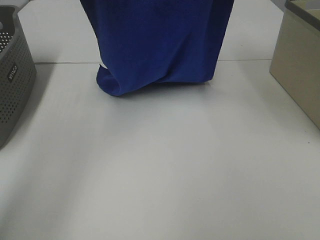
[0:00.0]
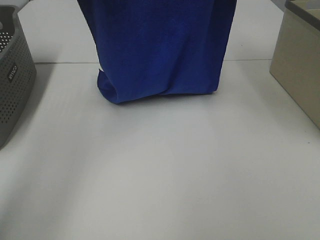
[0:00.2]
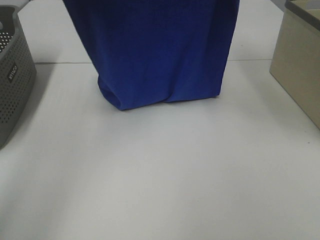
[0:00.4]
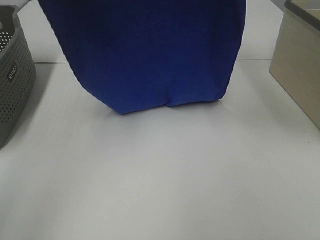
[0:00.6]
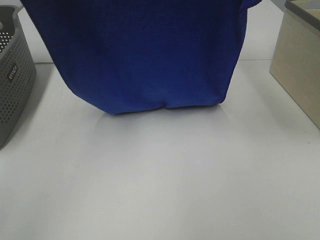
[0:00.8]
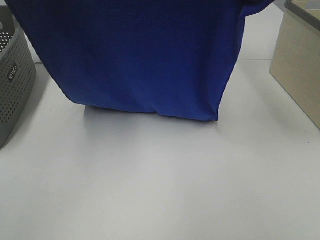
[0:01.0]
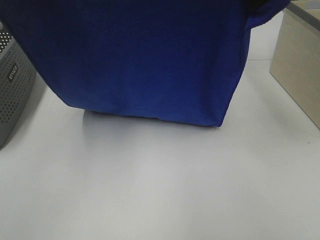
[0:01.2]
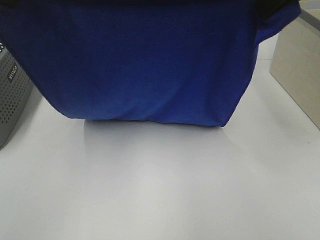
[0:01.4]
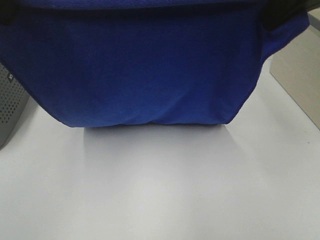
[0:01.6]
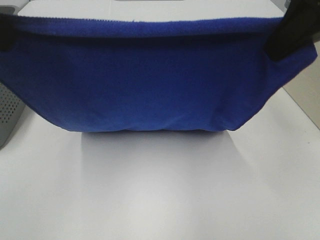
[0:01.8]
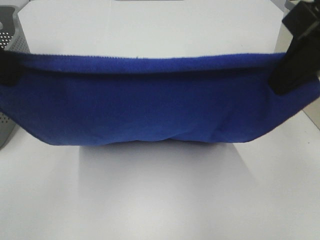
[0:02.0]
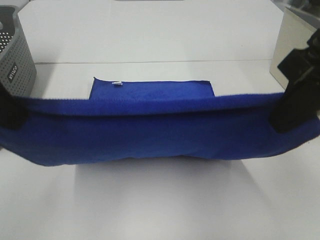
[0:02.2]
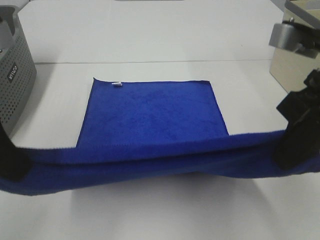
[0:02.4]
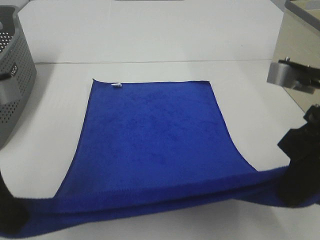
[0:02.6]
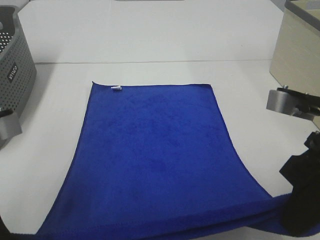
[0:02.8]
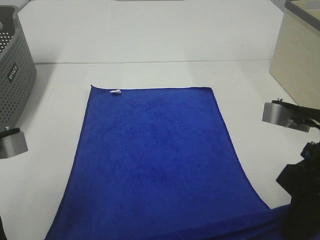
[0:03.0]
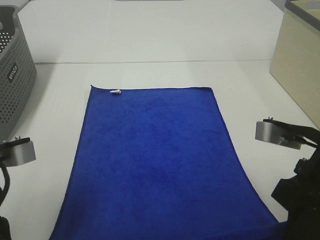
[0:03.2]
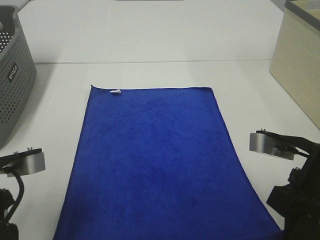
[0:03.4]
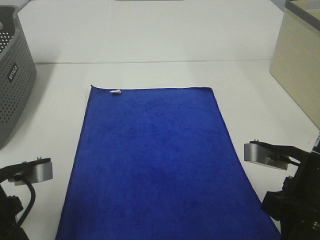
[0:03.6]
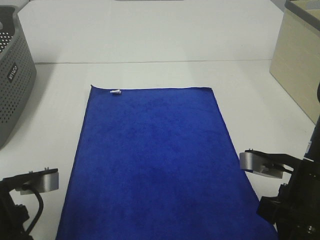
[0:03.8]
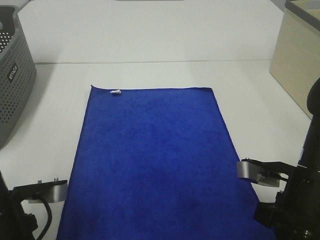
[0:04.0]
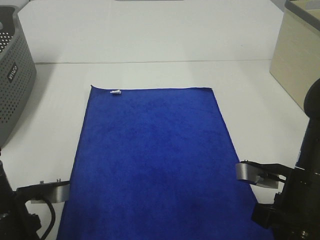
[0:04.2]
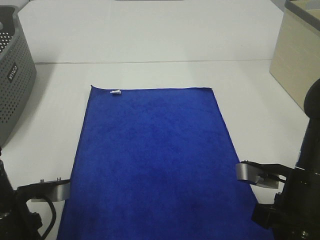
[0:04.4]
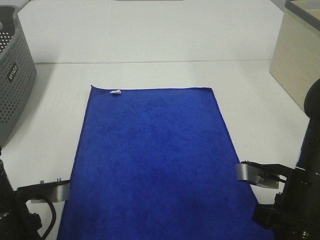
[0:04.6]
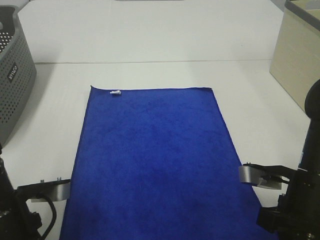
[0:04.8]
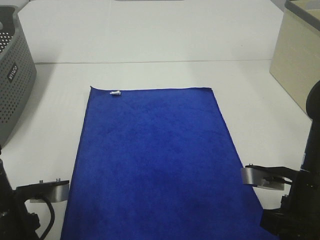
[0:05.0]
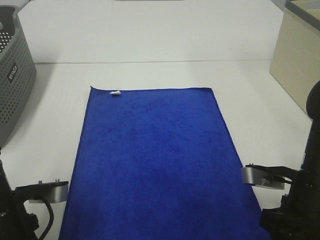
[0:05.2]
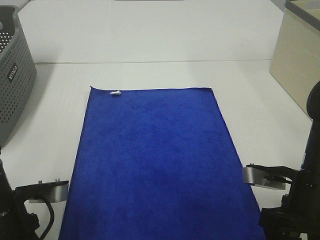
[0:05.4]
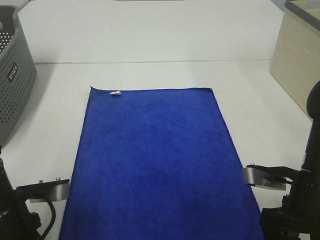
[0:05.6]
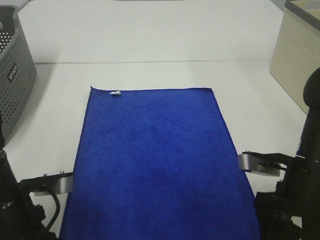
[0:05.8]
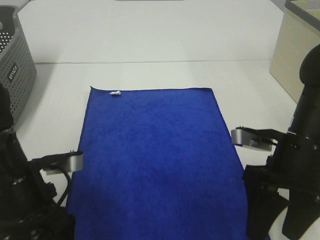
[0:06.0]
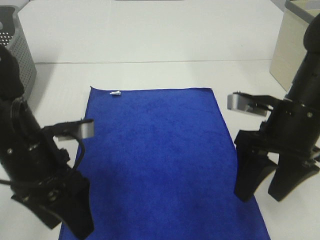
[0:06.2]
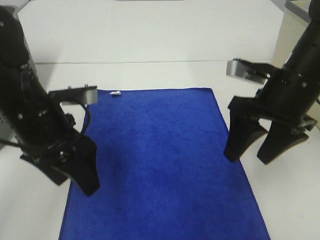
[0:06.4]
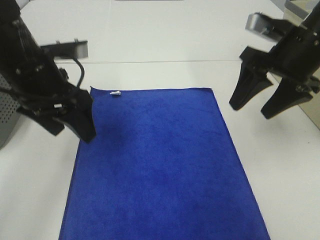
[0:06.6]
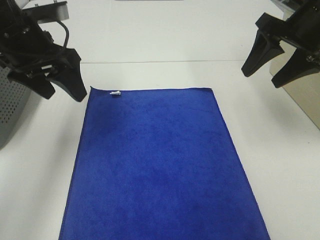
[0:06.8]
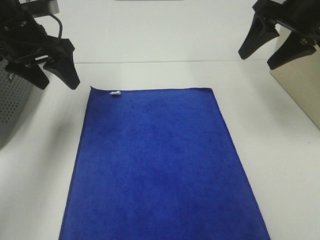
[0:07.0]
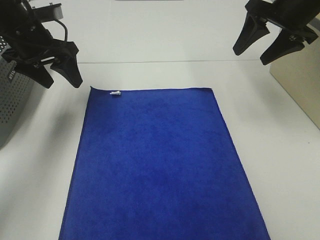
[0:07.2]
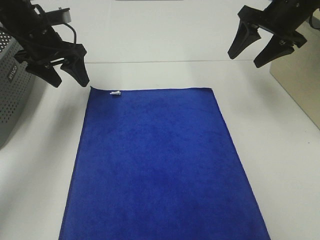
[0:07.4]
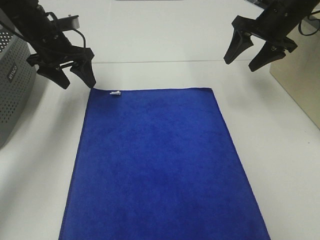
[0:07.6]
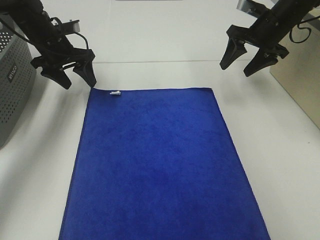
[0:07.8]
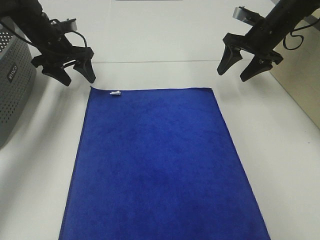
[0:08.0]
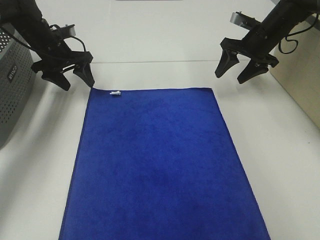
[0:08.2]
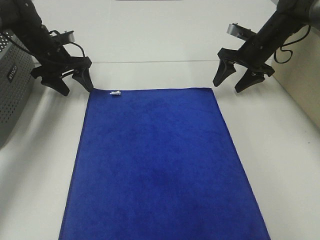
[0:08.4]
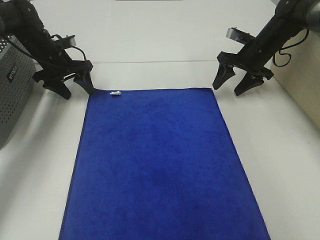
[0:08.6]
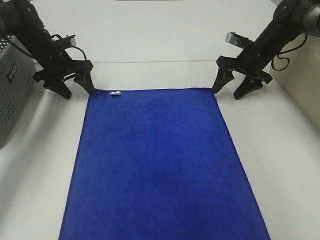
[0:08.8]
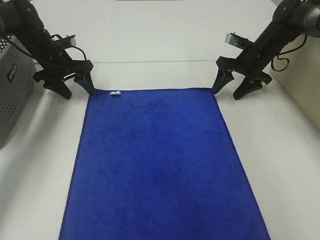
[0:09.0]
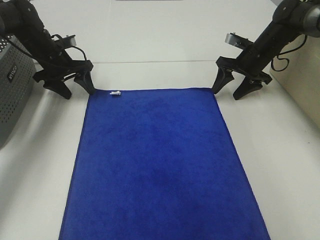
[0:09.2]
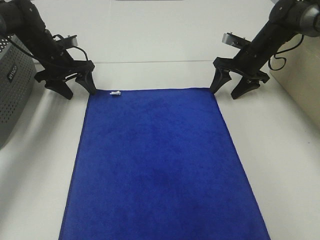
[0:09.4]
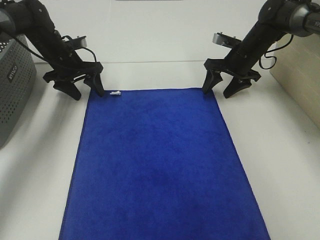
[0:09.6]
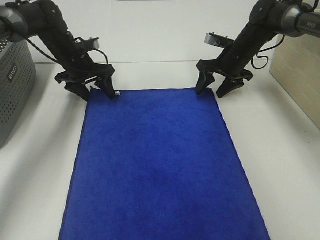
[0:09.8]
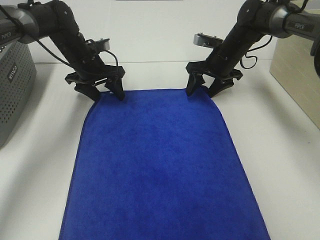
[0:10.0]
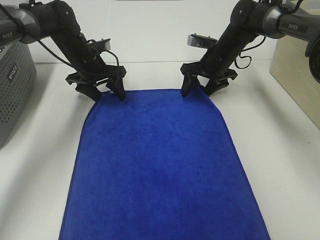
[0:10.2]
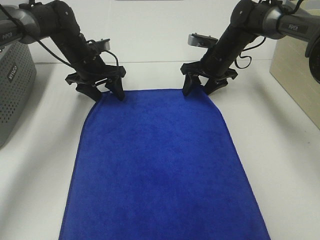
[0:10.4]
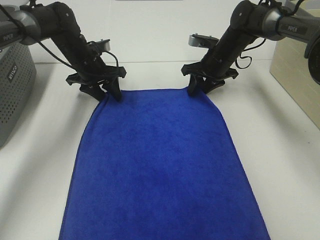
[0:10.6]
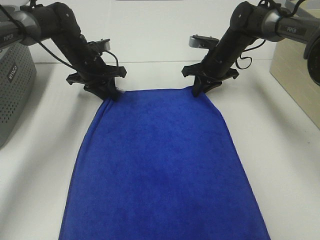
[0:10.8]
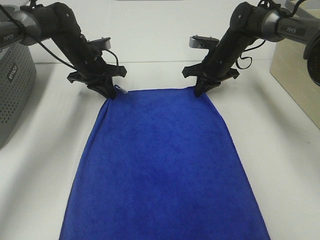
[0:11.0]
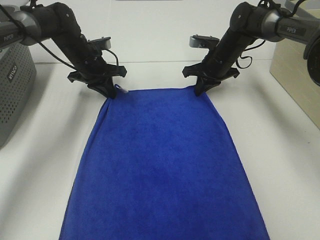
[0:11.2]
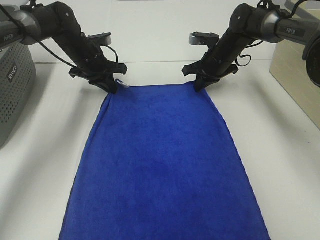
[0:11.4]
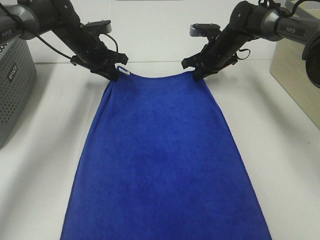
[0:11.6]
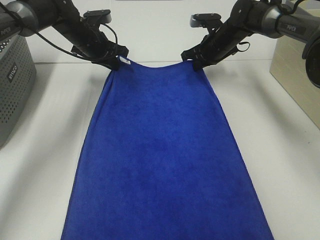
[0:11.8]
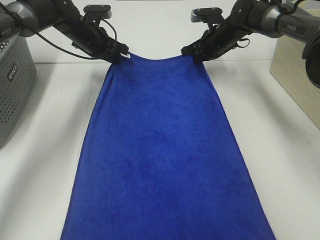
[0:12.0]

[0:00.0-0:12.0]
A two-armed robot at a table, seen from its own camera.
Task of the whole recording: Remove the towel and place it.
Step, 0:01.4 to 0:09.4: Left hand:adjust the blue towel.
Step, 0:01.4 to 0:09.4: Right hand:adjust the blue towel.
0:00.0 to 0:01.6: The left gripper travels backward by approximately 20 cm, while the right gripper shifts approximately 15 cm backward and downward.
0:01.6 to 0:03.0: The grippers both shift downward and backward by some 20 cm.
0:03.0 to 0:04.4: The grippers both shift downward by about 10 cm.
0:04.4 to 0:06.0: The left gripper opens; the right gripper opens its fingers.
0:06.0 to 0:07.6: The two grippers go some 25 cm forward.
0:07.6 to 0:09.0: The right gripper goes some 10 cm downward. Meanwhile the left gripper moves downward, about 5 cm.
0:09.0 to 0:10.4: The right gripper heads to the left, covering some 10 cm. The left gripper is displaced to the right by about 10 cm.
0:10.4 to 0:12.0: The left gripper changes place by some 5 cm, and closes; the right gripper ends up about 5 cm from where it was, and closes up.

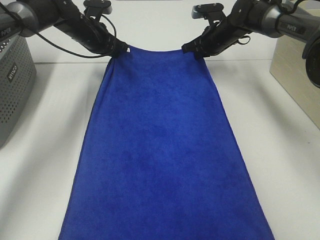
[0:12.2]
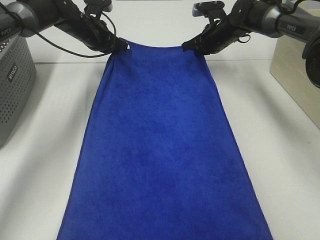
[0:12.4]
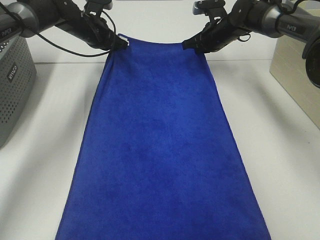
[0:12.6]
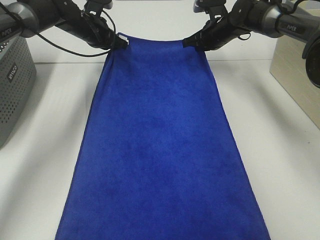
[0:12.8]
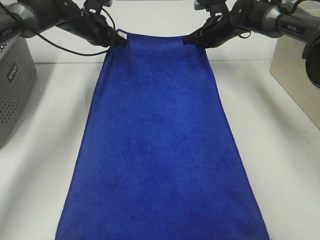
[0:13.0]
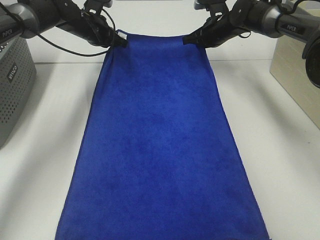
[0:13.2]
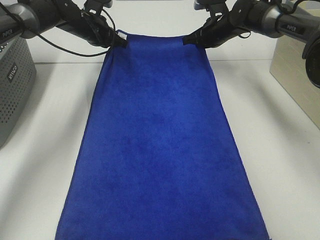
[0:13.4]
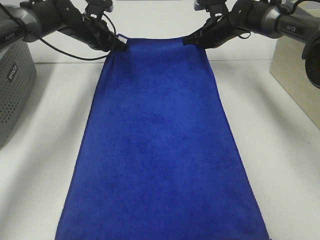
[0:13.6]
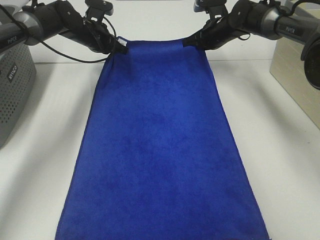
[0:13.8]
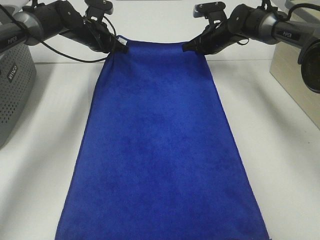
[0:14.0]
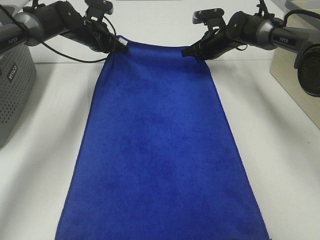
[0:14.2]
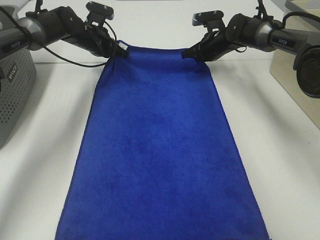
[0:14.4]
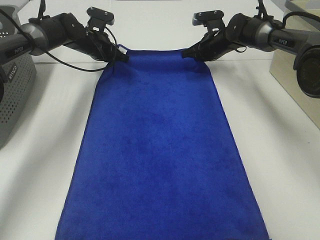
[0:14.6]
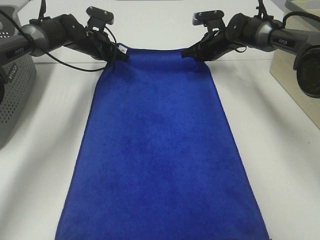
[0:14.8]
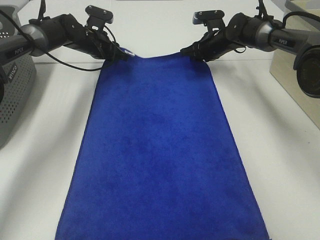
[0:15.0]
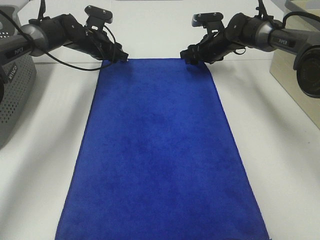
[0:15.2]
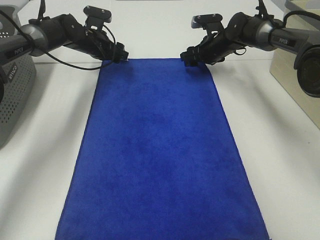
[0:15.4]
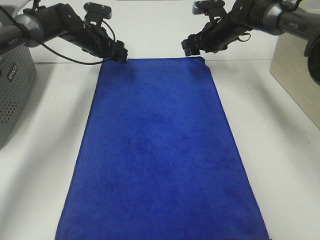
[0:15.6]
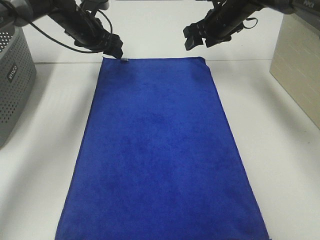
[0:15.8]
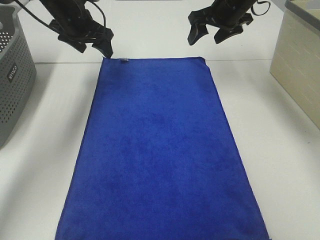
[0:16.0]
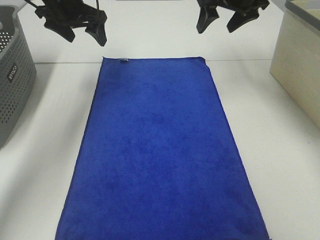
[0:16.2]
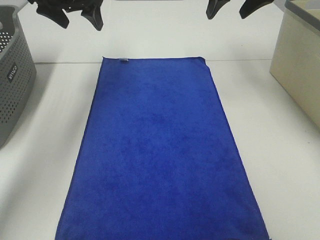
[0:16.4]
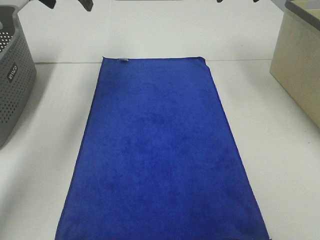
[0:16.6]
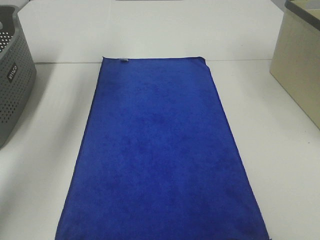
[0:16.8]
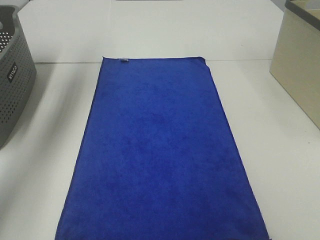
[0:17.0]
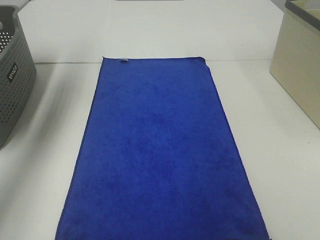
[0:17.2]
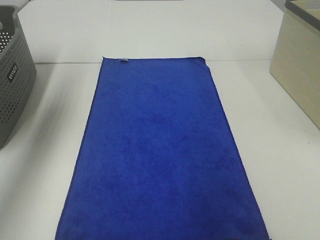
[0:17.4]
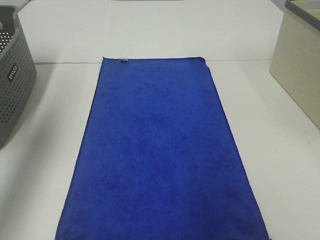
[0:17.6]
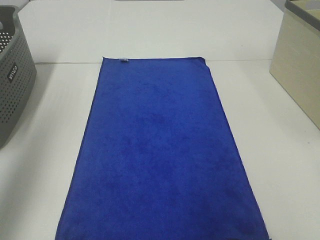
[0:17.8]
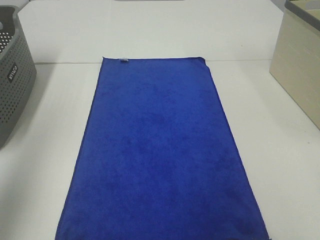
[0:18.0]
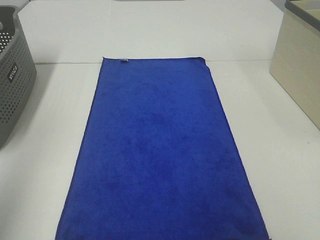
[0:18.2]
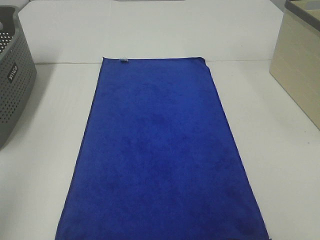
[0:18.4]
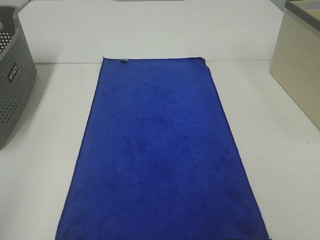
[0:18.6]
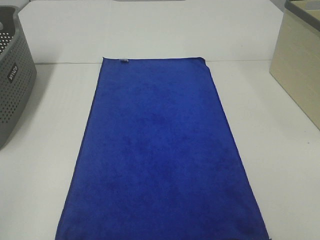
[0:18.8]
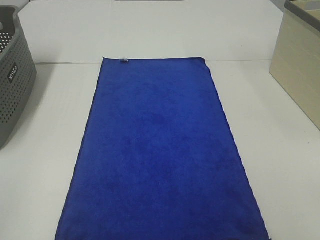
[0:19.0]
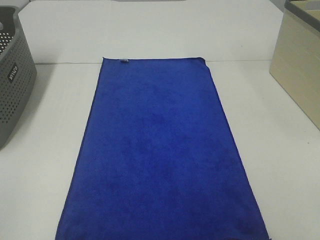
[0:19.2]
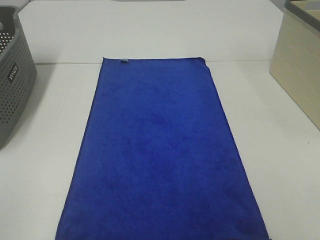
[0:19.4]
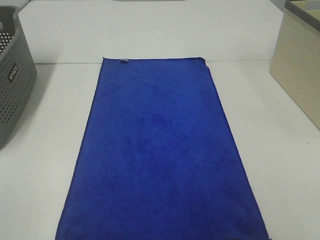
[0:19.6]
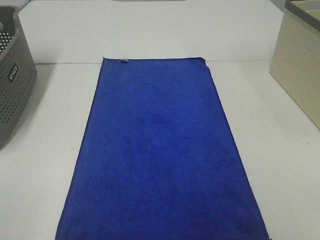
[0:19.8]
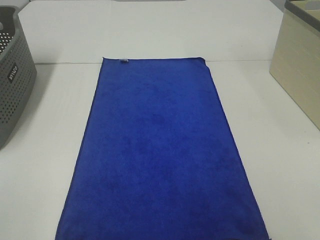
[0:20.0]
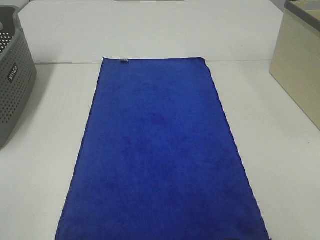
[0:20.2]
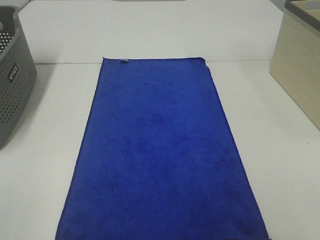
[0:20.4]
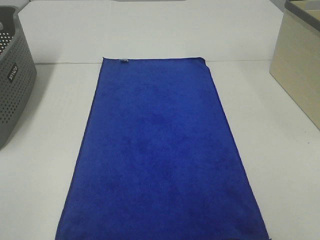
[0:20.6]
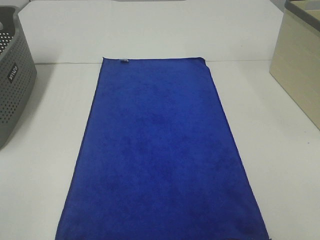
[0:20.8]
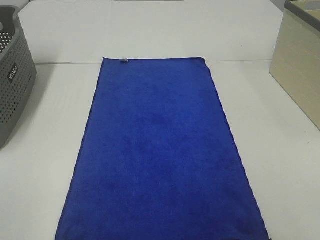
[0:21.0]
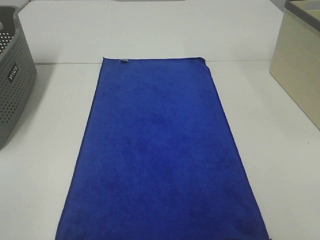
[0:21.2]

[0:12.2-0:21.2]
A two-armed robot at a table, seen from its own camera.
Task of the whole recording: Remove the towel and place it.
0:12.2 to 0:13.8: The grippers make only small movements.
0:13.8 to 0:15.2: The left gripper opens up, while the right gripper opens.
0:15.2 to 0:16.6: The grippers both shift upward and backward by some 25 cm.
0:16.6 to 0:18.2: The two grippers go roughly 35 cm backward.
0:18.2 to 0:19.8: The left gripper heads backward and downward, covering some 15 cm.
0:19.8 to 0:21.2: Both grippers stay put.

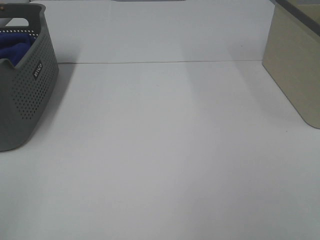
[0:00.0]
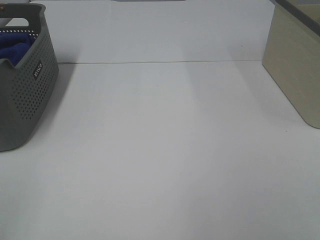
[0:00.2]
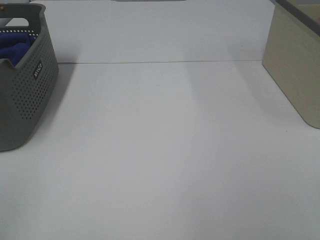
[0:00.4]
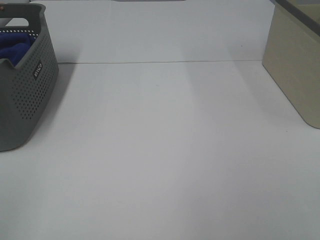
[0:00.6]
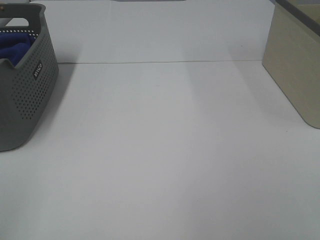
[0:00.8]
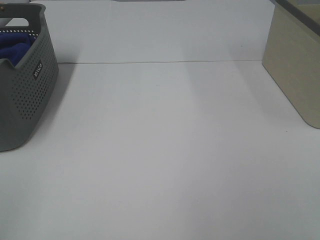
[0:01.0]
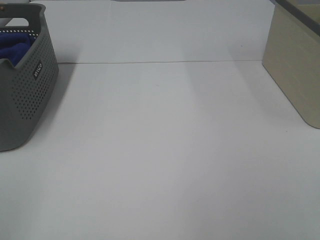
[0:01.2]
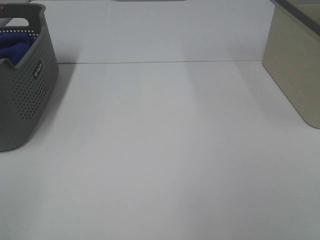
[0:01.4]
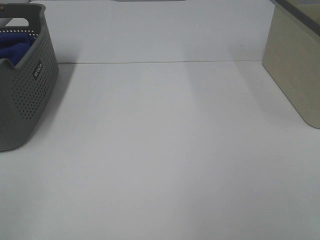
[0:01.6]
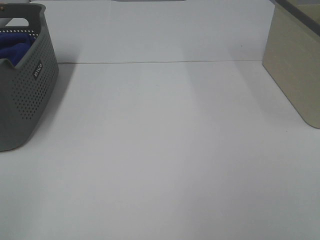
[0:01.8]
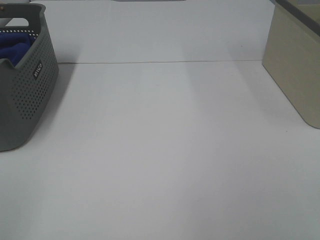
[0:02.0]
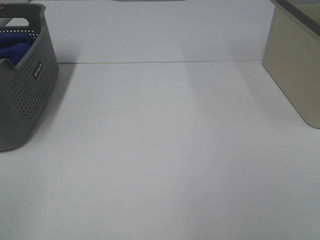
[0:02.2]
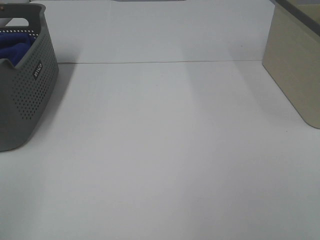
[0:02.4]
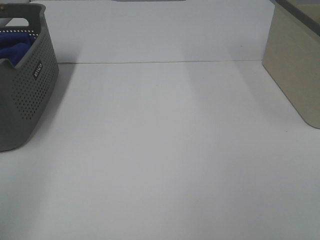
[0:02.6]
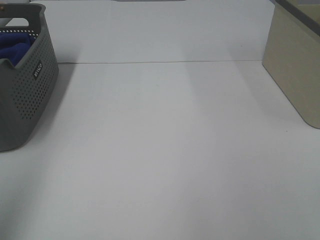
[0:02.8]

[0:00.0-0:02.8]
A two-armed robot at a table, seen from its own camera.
Task of the whole recording: Remove the towel and place it.
0:00.0 to 0:01.4: Both grippers stay put.
0:01.4 to 0:02.8: The left gripper travels forward and upward by about 15 cm.
